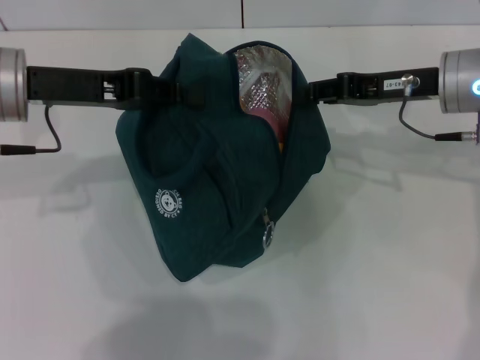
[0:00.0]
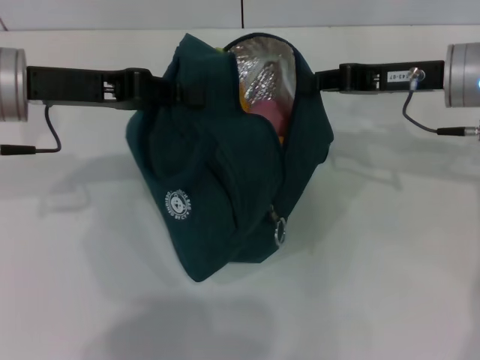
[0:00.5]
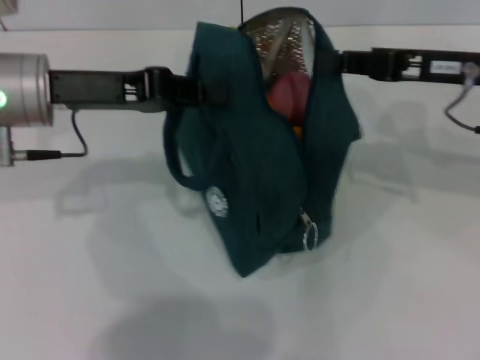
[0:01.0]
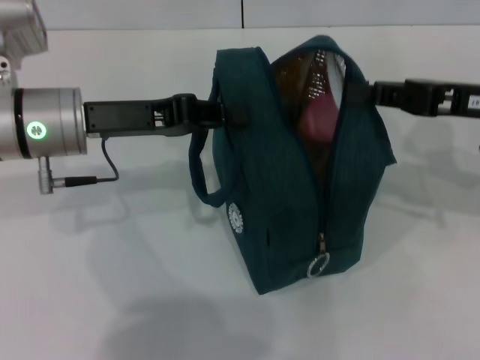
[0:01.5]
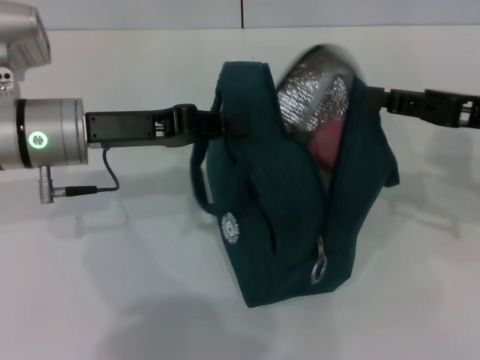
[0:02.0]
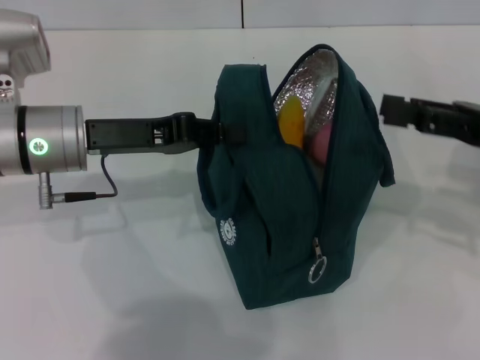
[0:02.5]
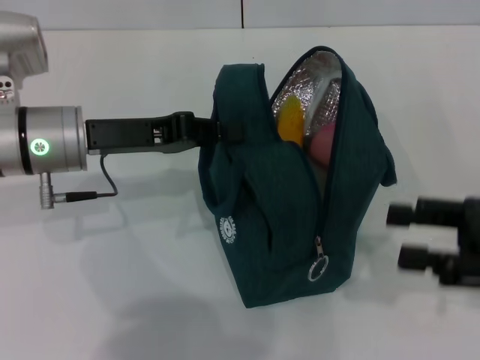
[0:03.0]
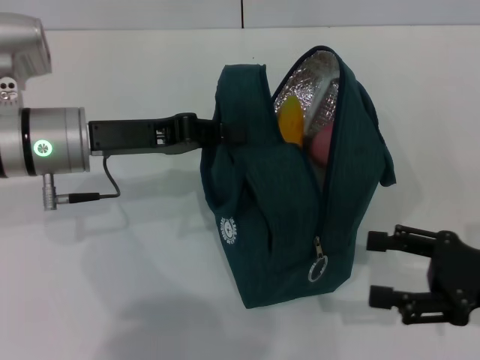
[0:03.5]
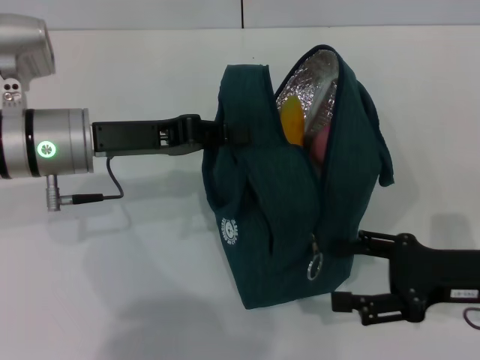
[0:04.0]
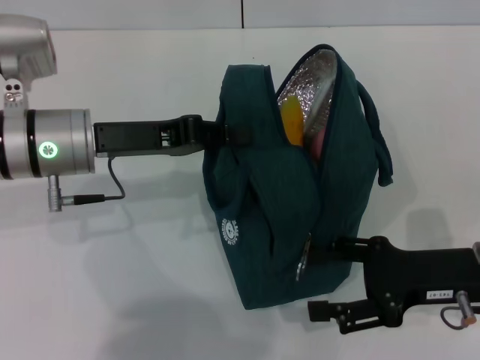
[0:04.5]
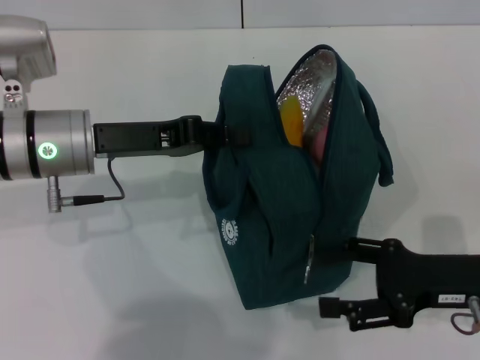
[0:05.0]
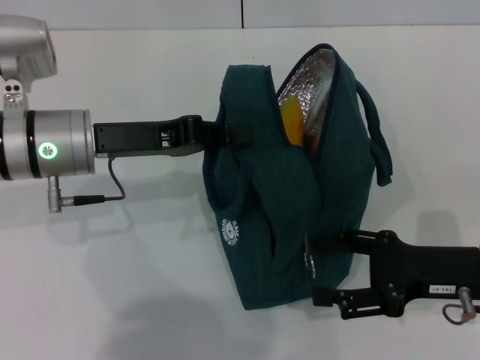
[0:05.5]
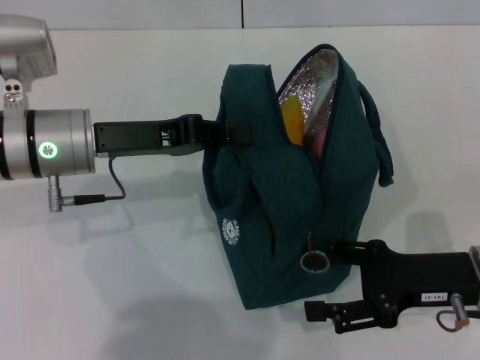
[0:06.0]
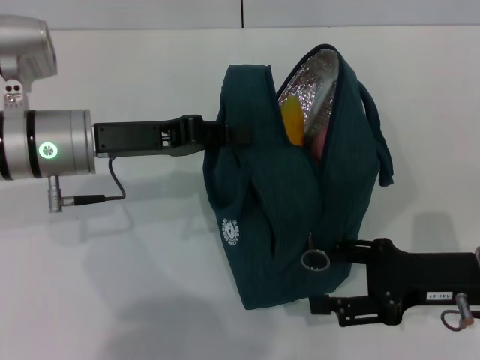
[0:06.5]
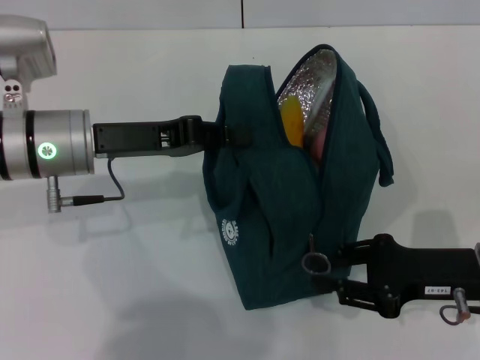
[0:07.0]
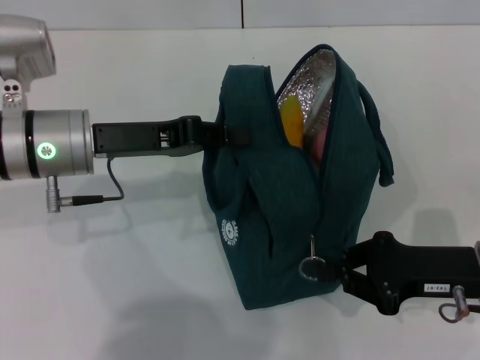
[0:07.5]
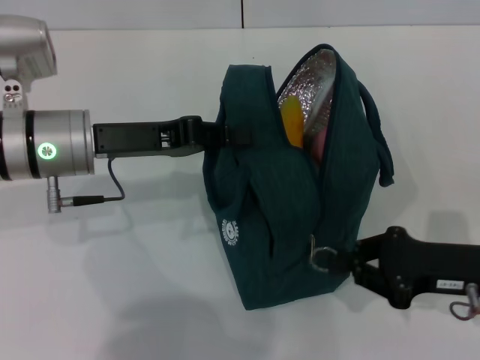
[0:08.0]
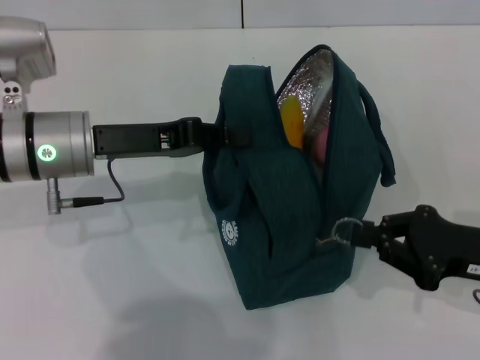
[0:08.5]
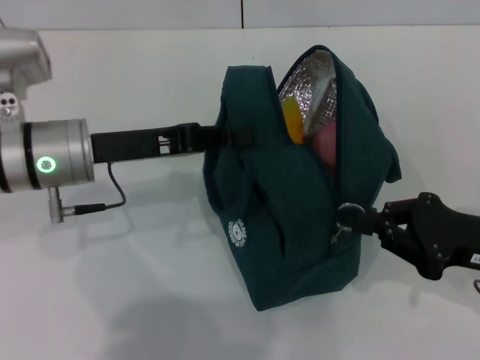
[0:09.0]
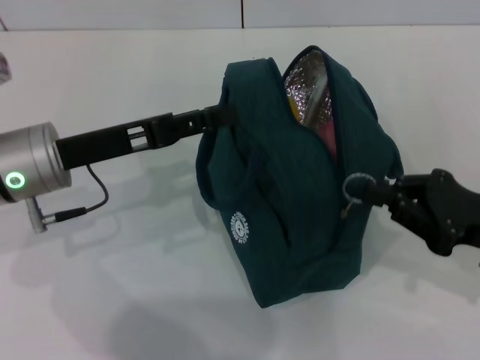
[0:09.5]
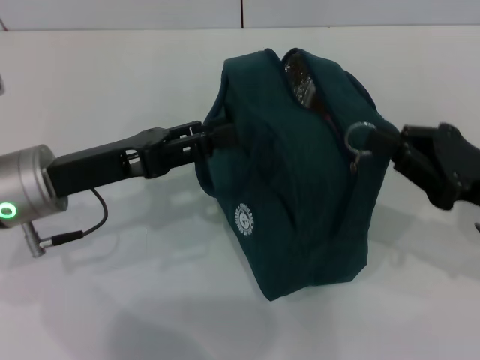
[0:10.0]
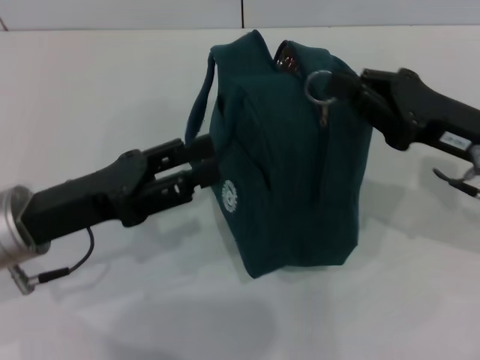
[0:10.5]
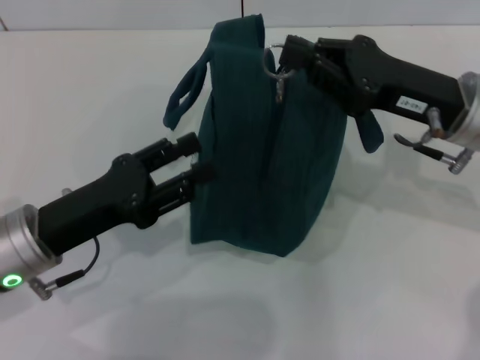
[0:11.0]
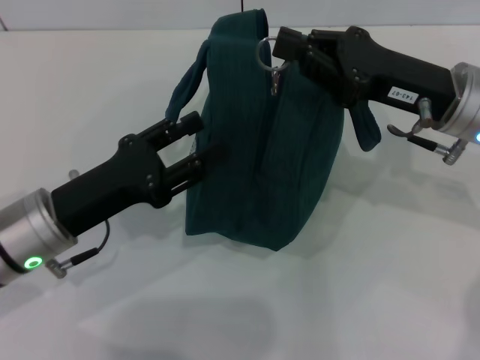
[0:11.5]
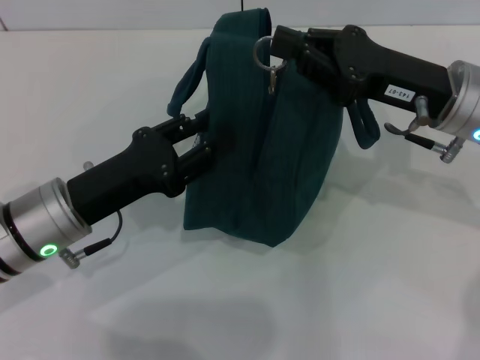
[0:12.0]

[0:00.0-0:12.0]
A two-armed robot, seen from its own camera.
Step, 0:00.0 to 0:02.0: Hold the lunch bag with your right hand.
0:00.0 to 0:02.0: The right gripper shifts roughly 10 cm backward and to the right, and closes, while the left gripper is displaced downward by approximately 5 cm.
0:02.0 to 0:04.0: The right gripper shifts about 10 cm downward and backward, and opens.
0:04.0 to 0:06.0: The grippers move only a little.
0:06.0 to 0:08.0: The right gripper closes.
0:08.0 to 0:10.0: The right gripper shifts by some 5 cm; the left gripper shifts by roughly 5 cm, and opens.
0:10.0 to 0:12.0: The right gripper heads forward and to the left, covering about 10 cm.

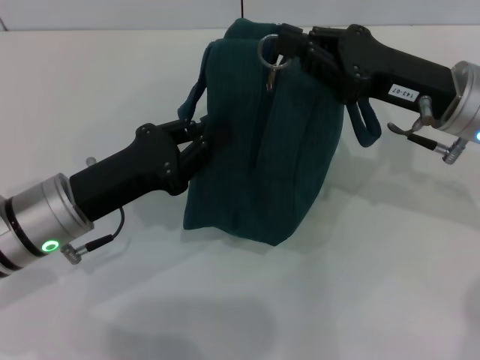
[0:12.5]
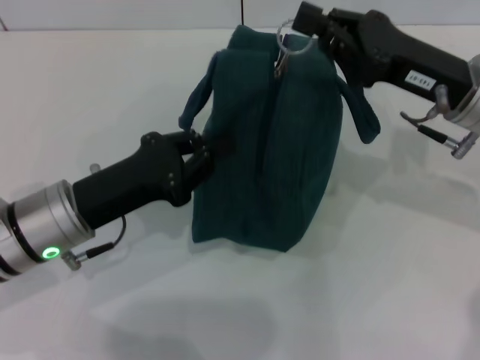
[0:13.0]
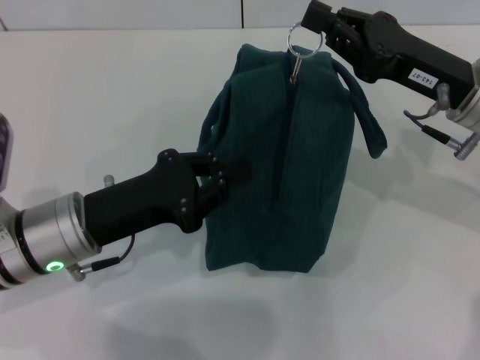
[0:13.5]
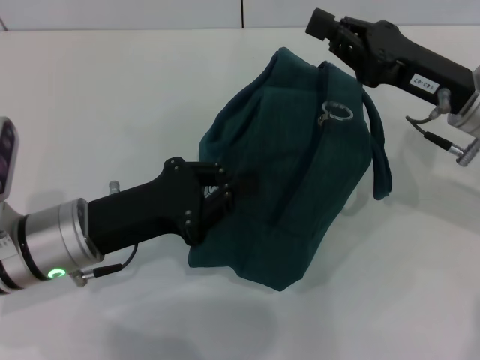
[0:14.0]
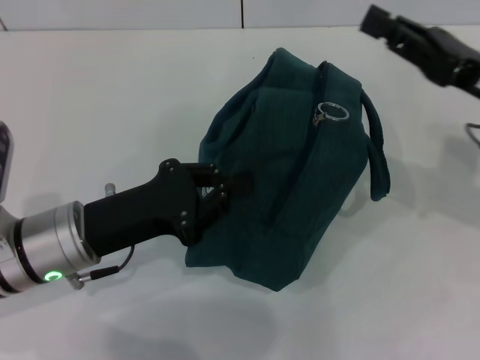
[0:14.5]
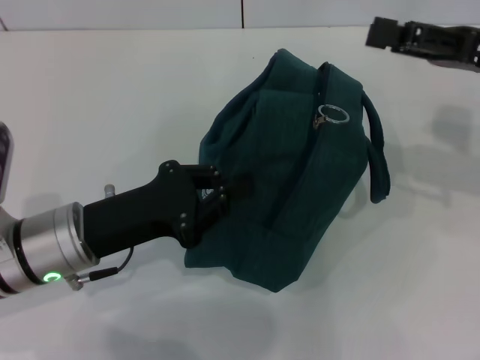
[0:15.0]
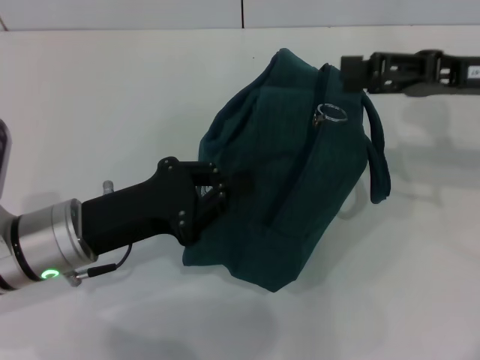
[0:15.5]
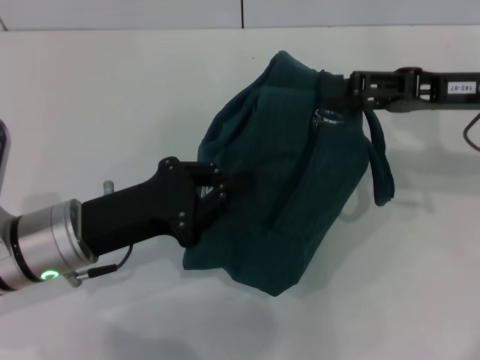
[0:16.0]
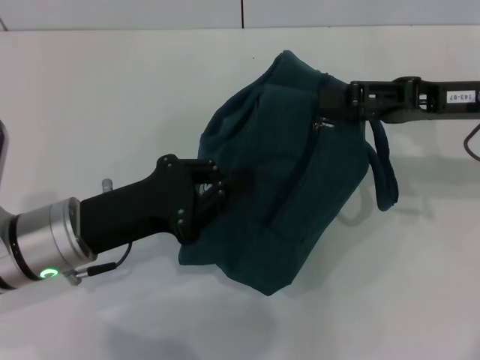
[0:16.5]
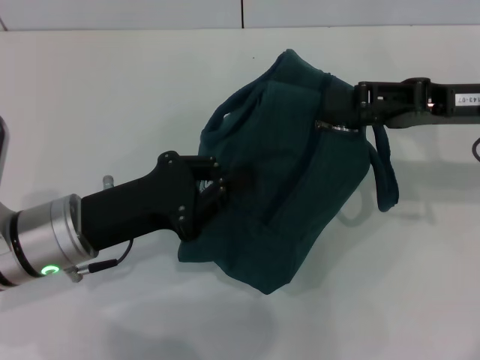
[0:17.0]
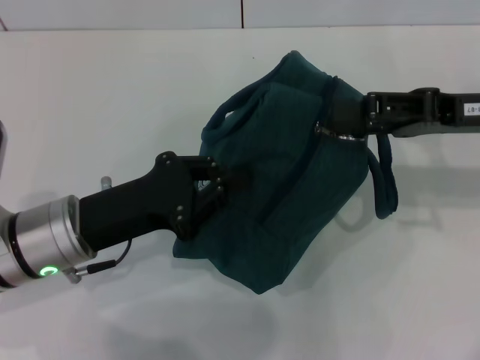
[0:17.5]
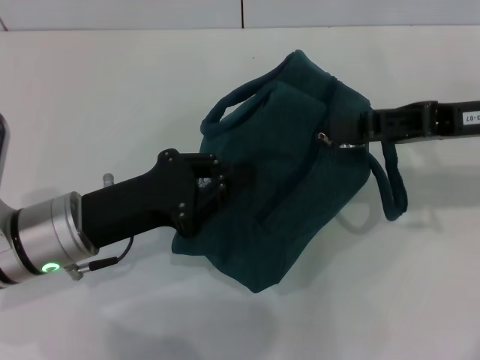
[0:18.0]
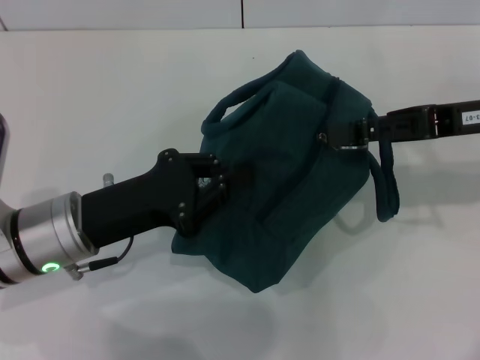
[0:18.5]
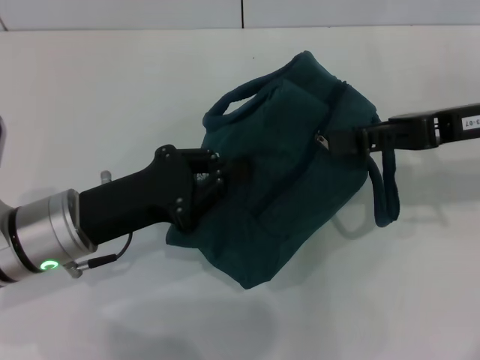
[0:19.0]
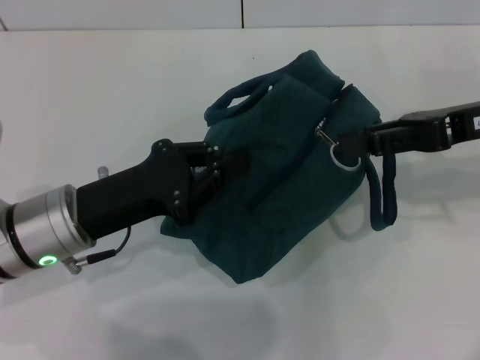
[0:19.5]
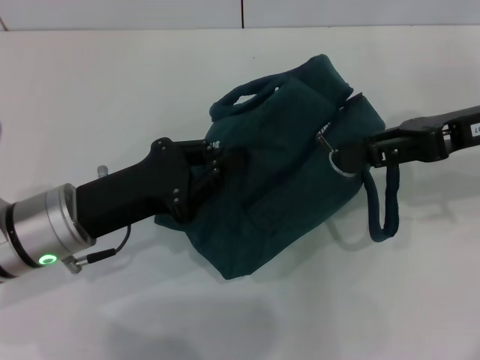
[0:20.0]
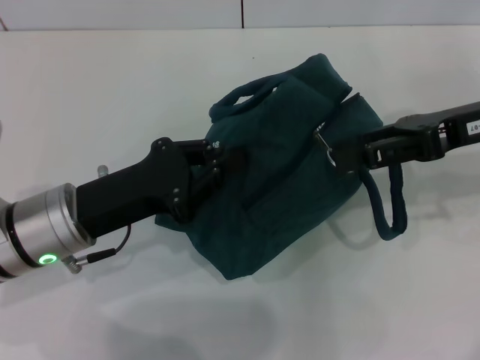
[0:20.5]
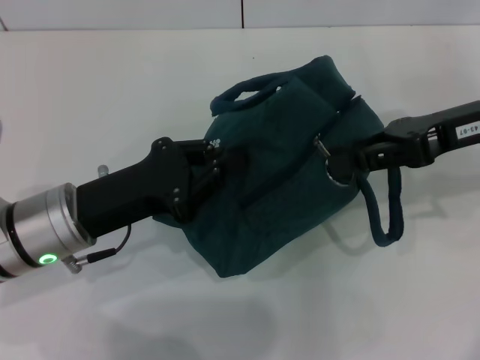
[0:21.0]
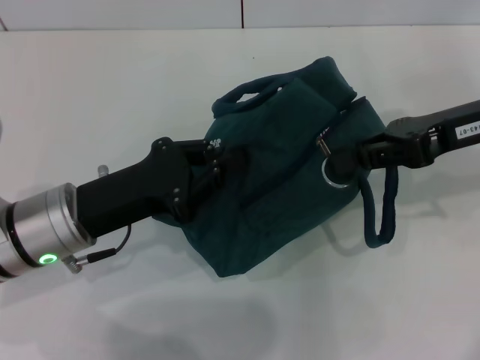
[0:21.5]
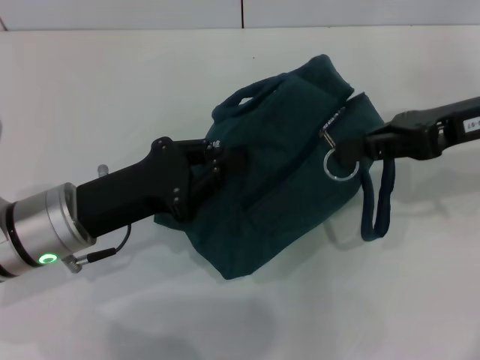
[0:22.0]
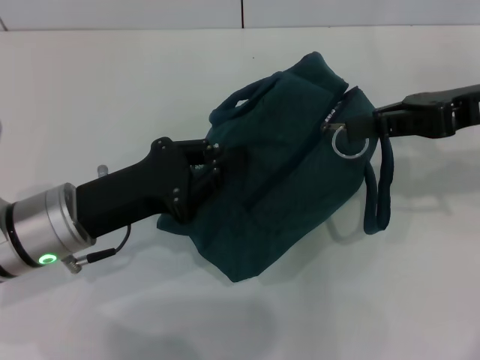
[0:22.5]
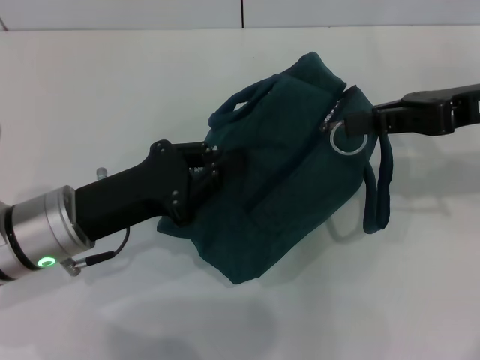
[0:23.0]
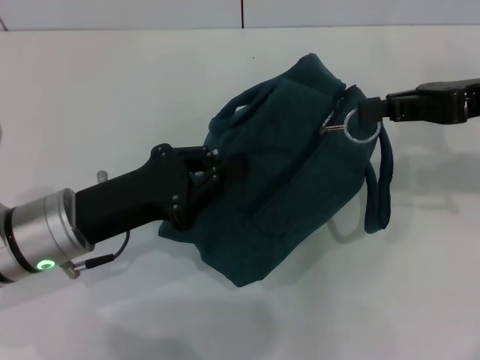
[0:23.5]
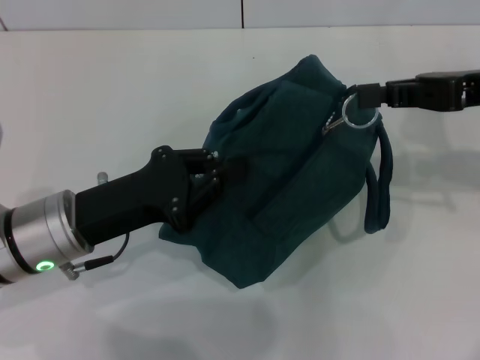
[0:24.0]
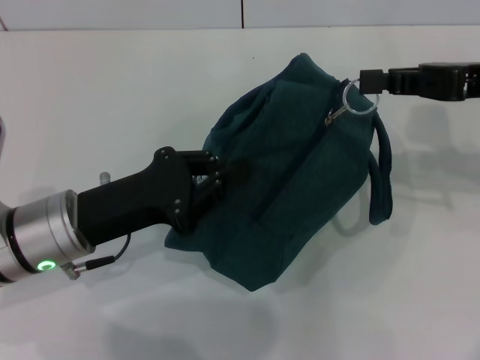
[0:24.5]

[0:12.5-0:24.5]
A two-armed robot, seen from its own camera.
0:12.5 to 0:14.5: The right gripper shifts some 5 cm to the right.
0:14.5 to 0:16.5: The right gripper opens its fingers.
0:16.5 to 0:20.5: There are only small adjustments of the grippers.
0:20.5 to 0:22.5: The right gripper closes.
0:22.5 to 0:24.5: The grippers move only a little.

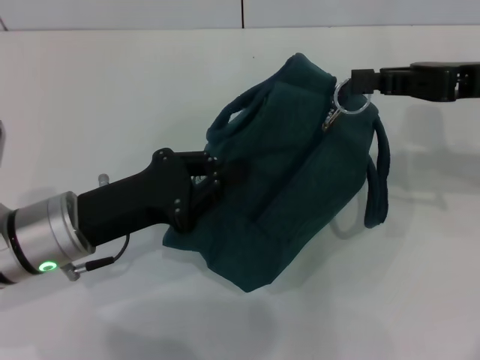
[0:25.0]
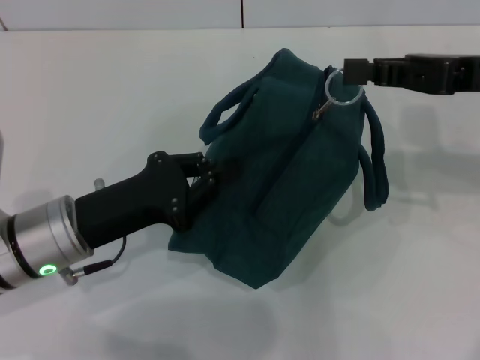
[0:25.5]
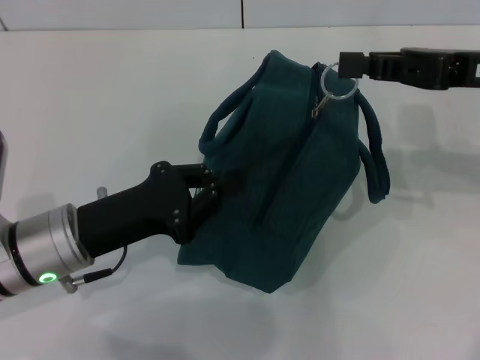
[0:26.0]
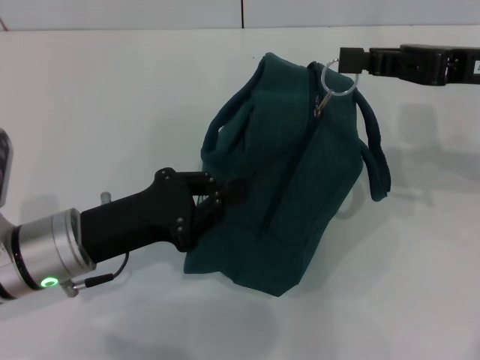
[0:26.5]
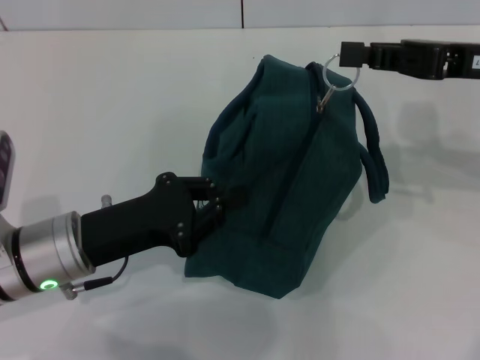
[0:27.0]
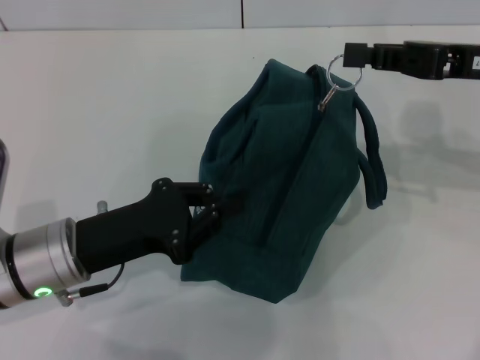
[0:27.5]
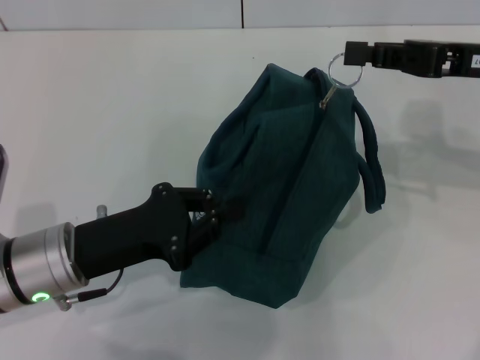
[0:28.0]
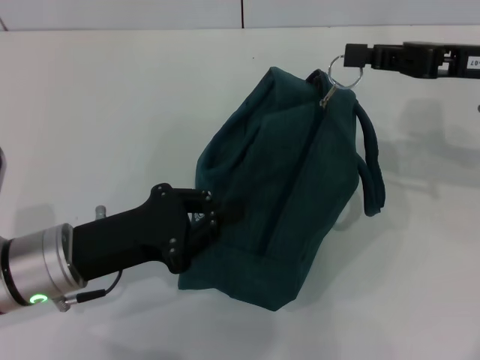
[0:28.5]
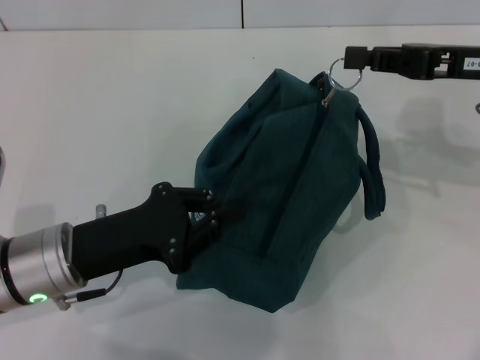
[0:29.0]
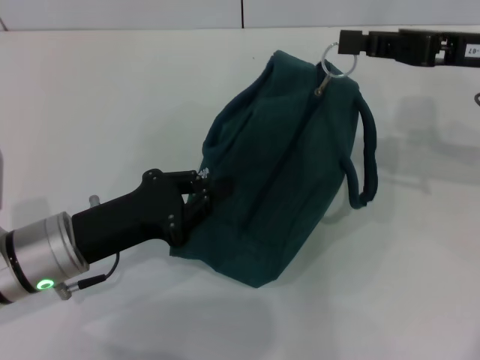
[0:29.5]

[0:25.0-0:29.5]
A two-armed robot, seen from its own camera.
0:25.0 to 0:29.5: The grippers move only a little.
